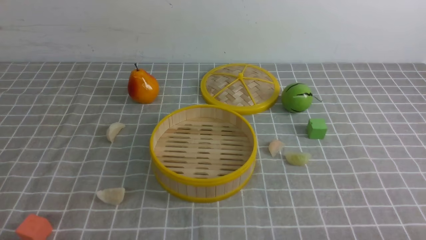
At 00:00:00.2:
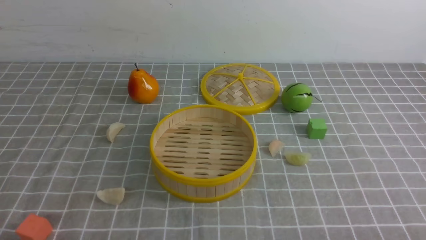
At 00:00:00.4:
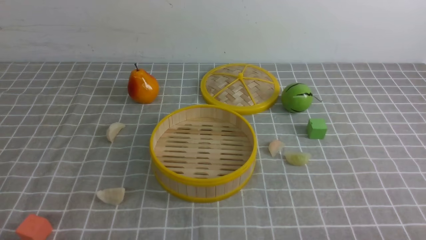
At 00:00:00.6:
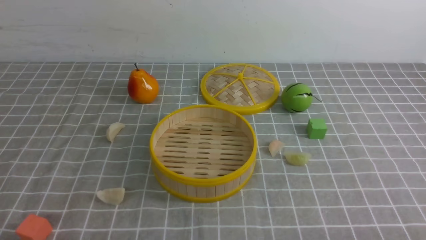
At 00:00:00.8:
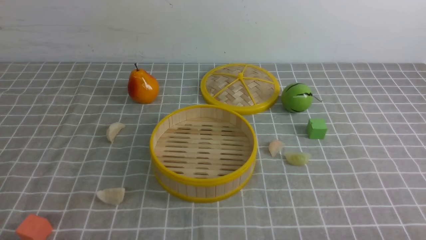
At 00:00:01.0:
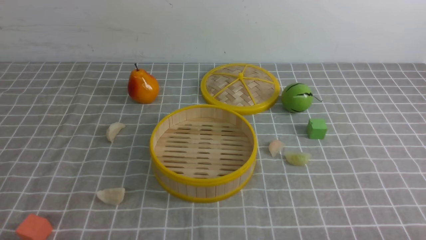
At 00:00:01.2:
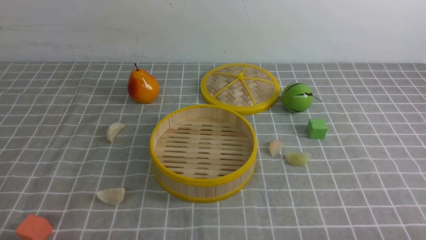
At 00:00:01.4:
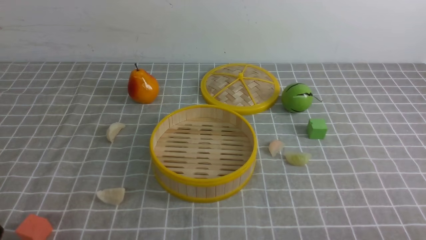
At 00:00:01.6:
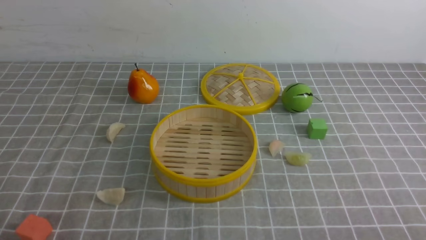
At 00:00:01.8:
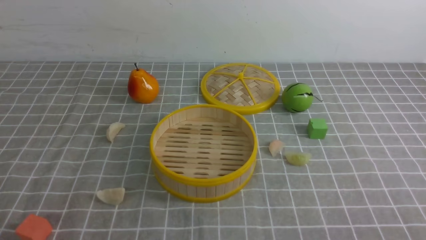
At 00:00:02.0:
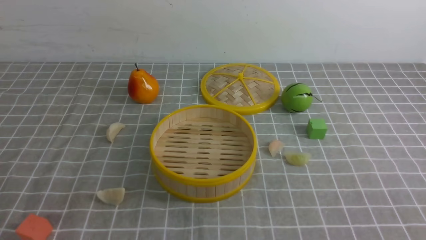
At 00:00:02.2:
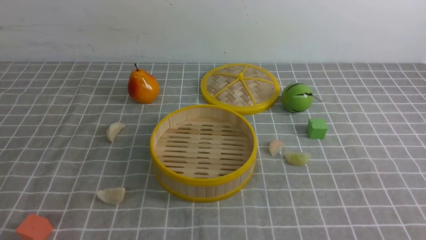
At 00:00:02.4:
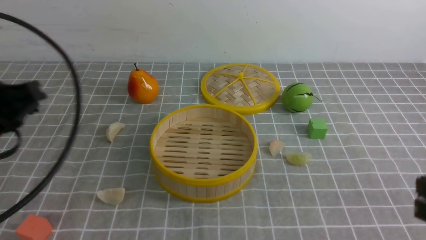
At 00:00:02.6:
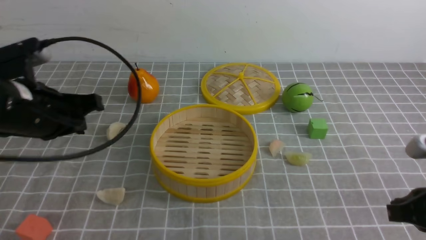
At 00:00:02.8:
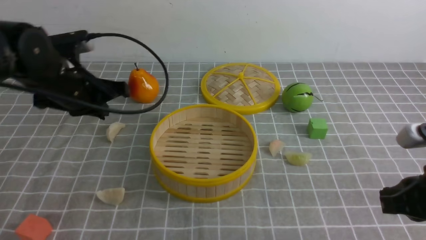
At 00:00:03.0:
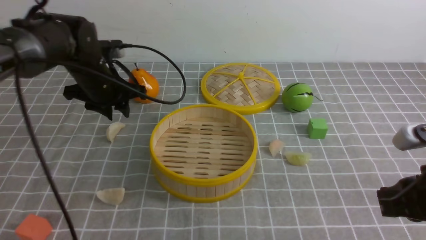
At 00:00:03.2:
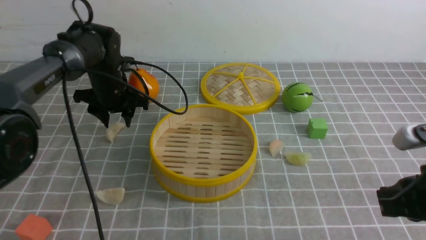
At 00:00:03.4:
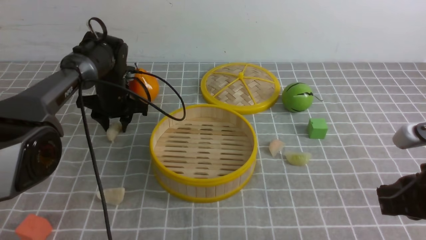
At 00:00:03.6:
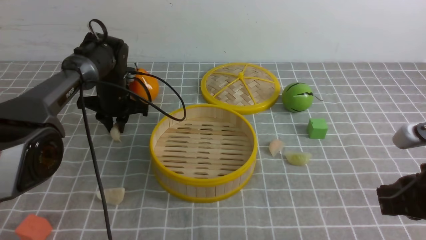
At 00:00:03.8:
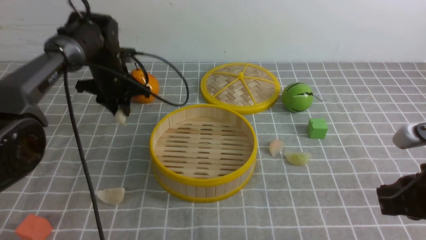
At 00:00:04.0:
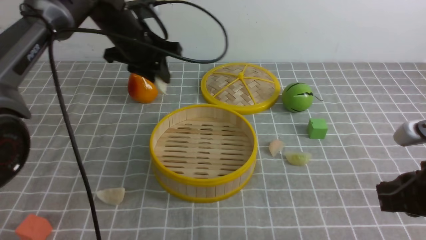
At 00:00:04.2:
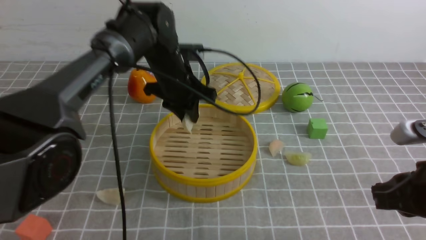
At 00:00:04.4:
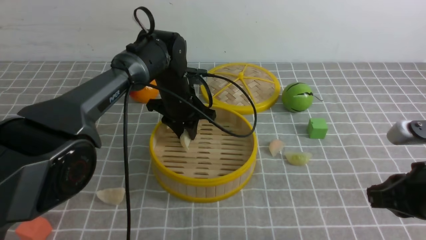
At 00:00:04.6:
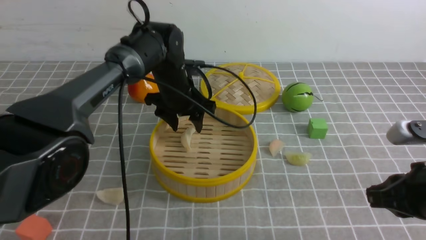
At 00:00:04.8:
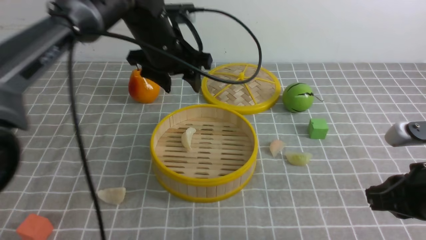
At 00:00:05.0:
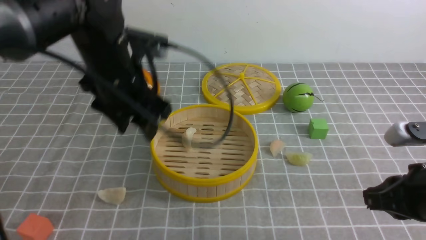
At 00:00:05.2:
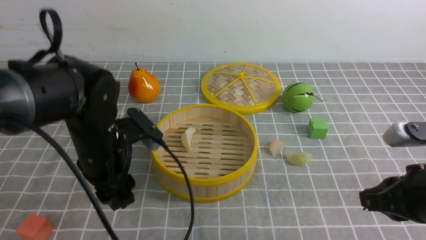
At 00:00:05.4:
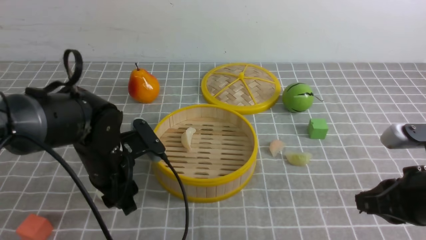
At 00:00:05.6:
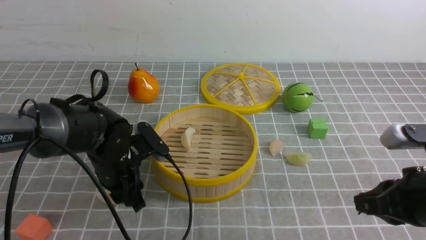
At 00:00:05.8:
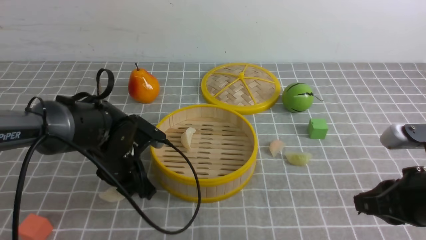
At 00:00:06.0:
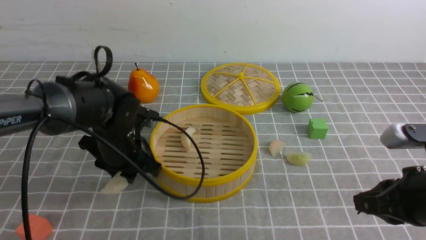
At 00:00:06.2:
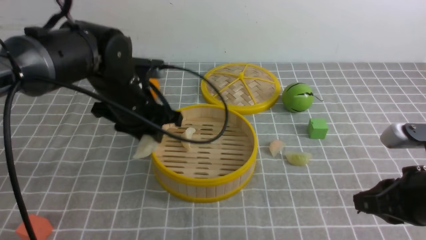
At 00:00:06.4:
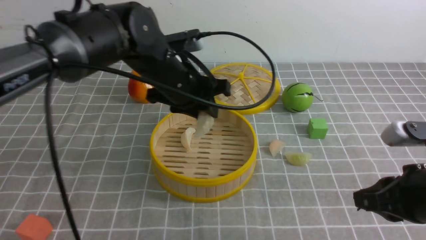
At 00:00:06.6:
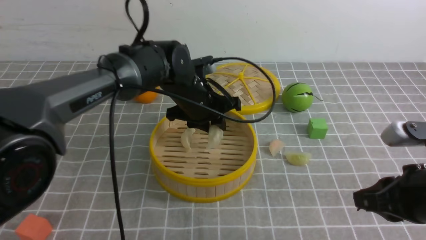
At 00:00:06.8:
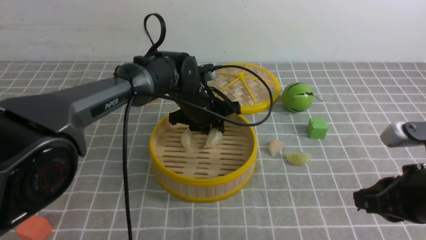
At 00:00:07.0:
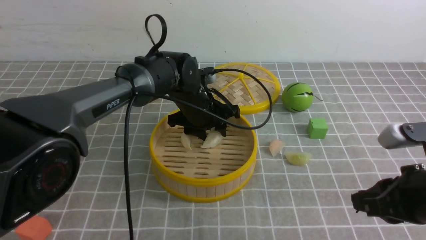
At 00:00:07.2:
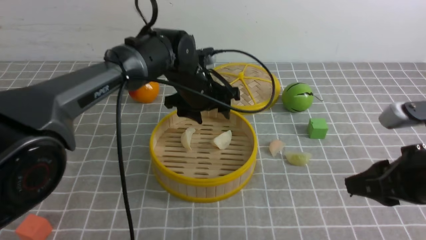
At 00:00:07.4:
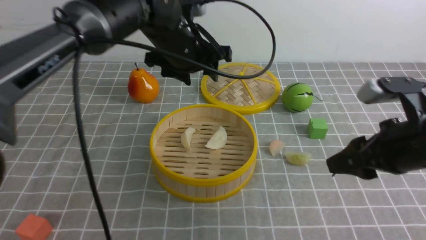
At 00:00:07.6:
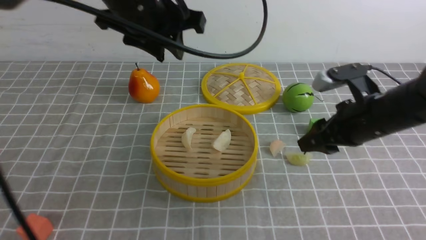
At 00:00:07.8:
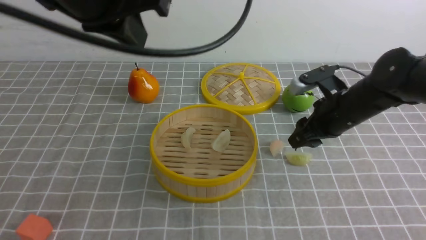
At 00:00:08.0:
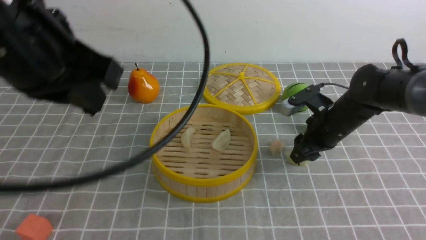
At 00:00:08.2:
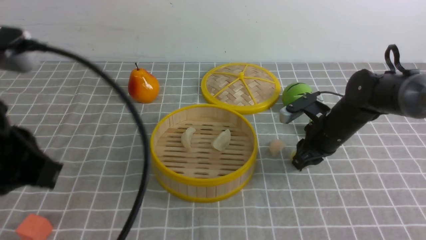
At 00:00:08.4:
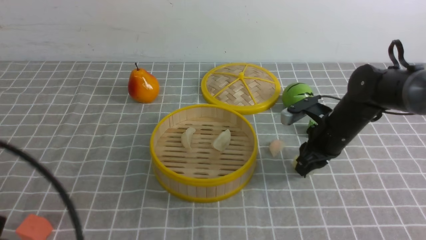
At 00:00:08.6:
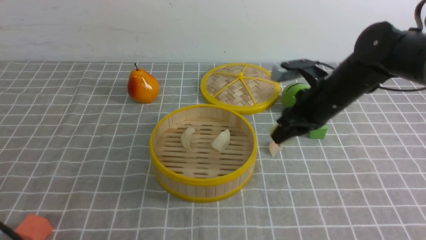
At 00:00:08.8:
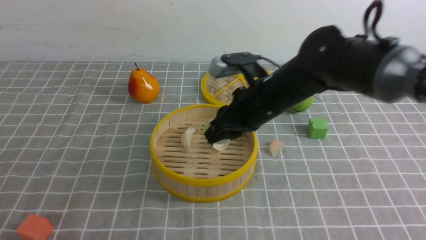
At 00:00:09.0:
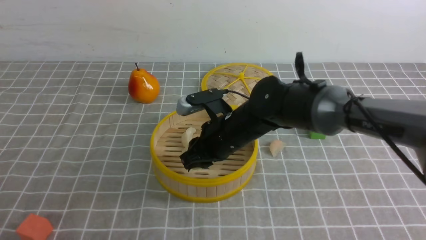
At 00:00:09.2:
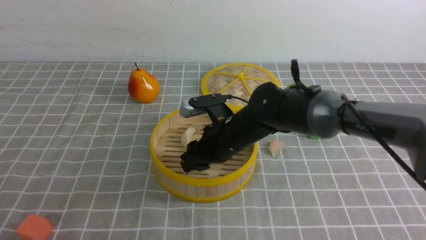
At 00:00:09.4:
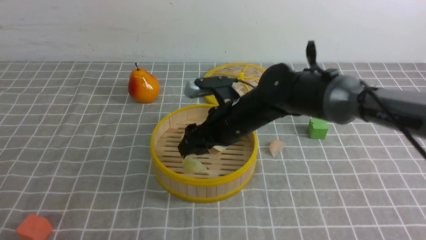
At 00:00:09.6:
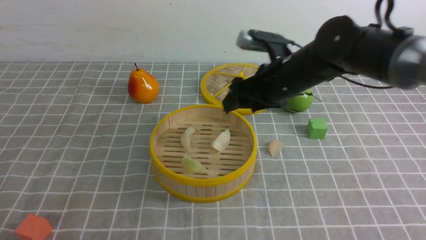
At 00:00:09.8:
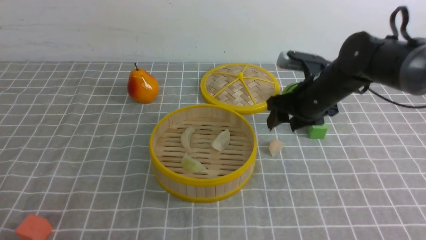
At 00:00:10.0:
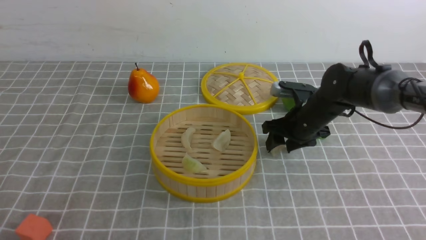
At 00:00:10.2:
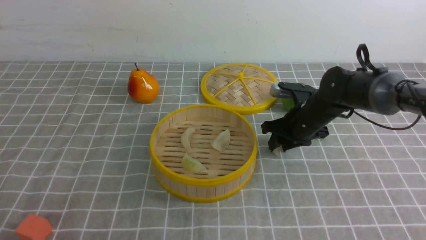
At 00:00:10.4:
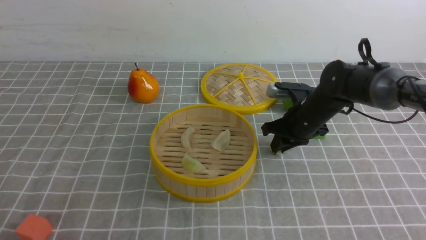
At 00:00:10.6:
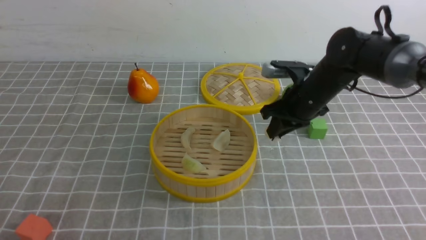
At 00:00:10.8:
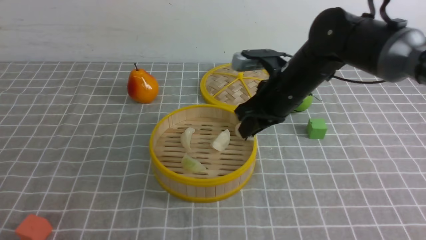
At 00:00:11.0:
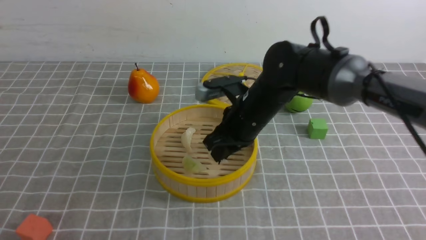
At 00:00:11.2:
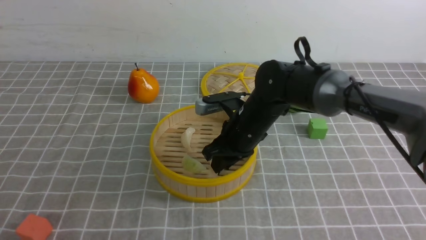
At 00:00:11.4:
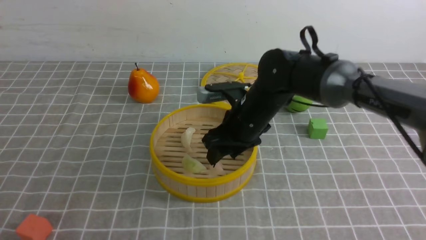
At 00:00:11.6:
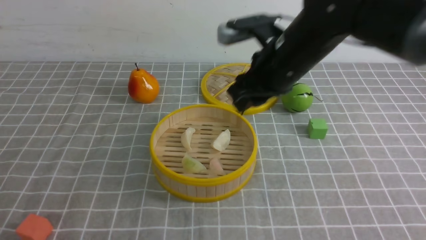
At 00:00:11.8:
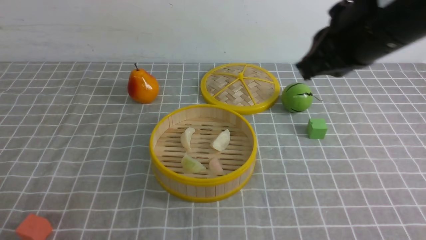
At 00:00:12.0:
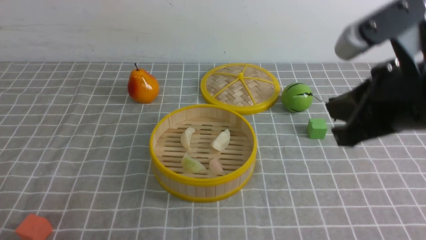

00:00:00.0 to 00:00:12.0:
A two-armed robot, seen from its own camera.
Task of the whole recording: put the dumplings into the steamer on the table with the grey tablecloth.
Step, 00:00:00.0 to 00:00:03.6: use the left arm to grab a dumpling.
Step, 00:00:03.8 to 00:00:04.6: use the left arm to put the dumpling into the steamer.
Step, 00:00:04.8 to 00:00:06.0: use the left arm to grab a dumpling.
Step, 00:00:06.2 to 00:00:07.2: use the left arm to put the dumpling into the steamer.
Step, 00:00:07.4 to 00:00:08.4: use the right arm to grab a dumpling.
Step, 00:00:08.6 to 00:00:09.4: use the right arm to put the dumpling into the steamer.
Step, 00:00:09.6 to 00:00:10.4: use the right arm to grab a dumpling.
Step, 00:00:10.6 to 00:00:11.4: use the right arm to put the dumpling into the steamer.
00:00:01.6 to 00:00:03.0: The right gripper moves forward, roughly 15 cm, and closes up; the left gripper shifts approximately 40 cm forward, and closes and opens again.
00:00:03.0 to 00:00:04.4: The left gripper heads to the right, covering some 15 cm.
00:00:04.4 to 00:00:06.0: The left gripper heads backward and to the left, covering some 15 cm.
00:00:06.0 to 00:00:07.6: The left gripper goes up and down, approximately 20 cm each way, reversing 2 times, and opens and closes again; the right gripper is displaced forward by about 15 cm, and opens its fingers.
00:00:07.6 to 00:00:09.0: The left gripper is displaced backward, to the left and downward by roughly 35 cm, and closes its fingers. The right gripper travels to the left by roughly 20 cm.
00:00:09.0 to 00:00:10.4: The right gripper heads to the right and forward, covering some 15 cm, and opens and closes again.
00:00:10.4 to 00:00:12.0: The right gripper heads backward and upward, covering approximately 25 cm, and opens, then closes once more.

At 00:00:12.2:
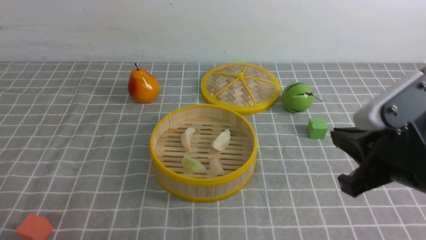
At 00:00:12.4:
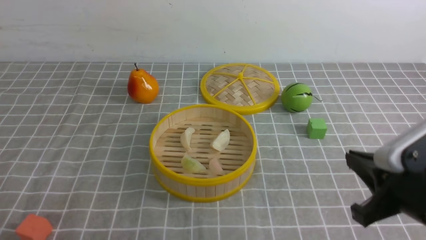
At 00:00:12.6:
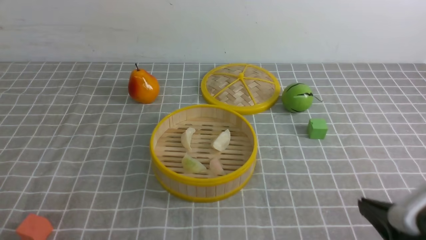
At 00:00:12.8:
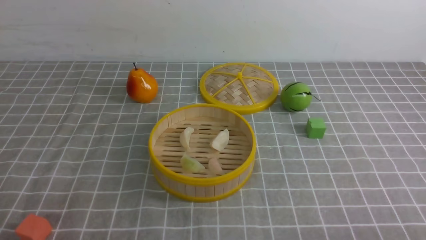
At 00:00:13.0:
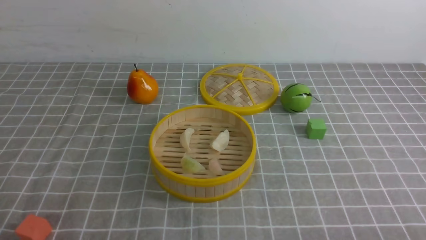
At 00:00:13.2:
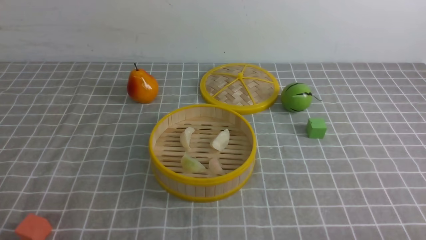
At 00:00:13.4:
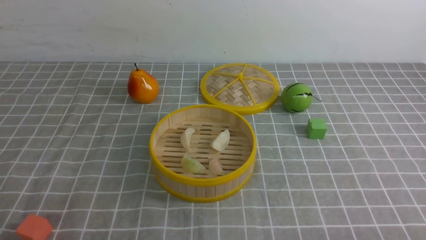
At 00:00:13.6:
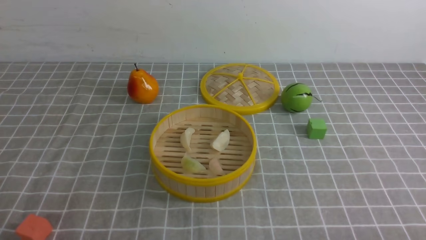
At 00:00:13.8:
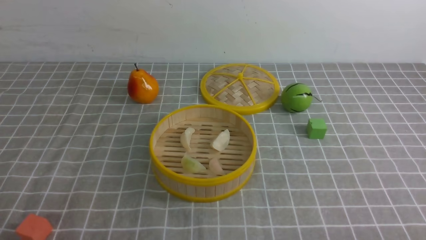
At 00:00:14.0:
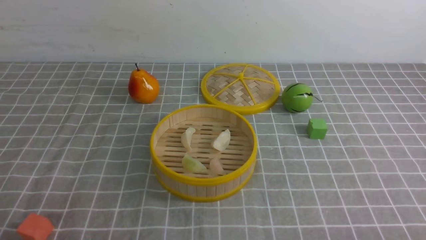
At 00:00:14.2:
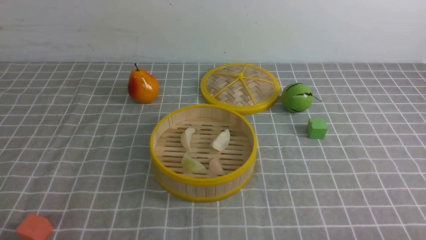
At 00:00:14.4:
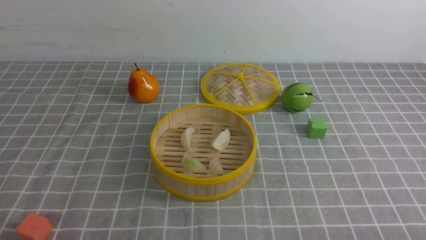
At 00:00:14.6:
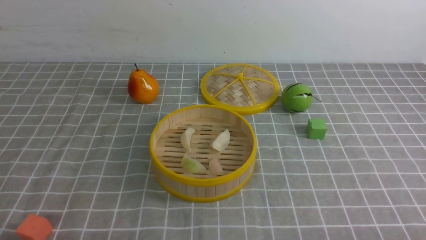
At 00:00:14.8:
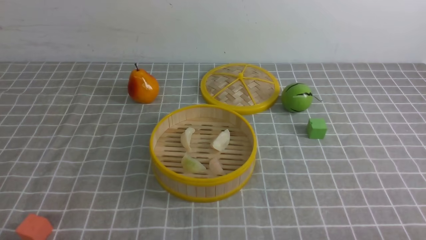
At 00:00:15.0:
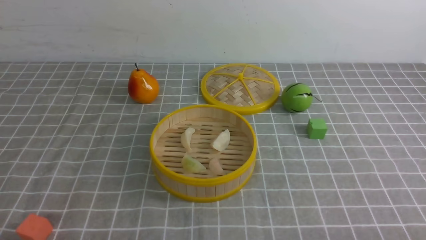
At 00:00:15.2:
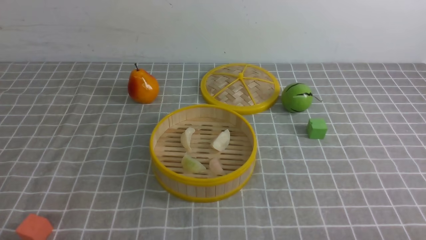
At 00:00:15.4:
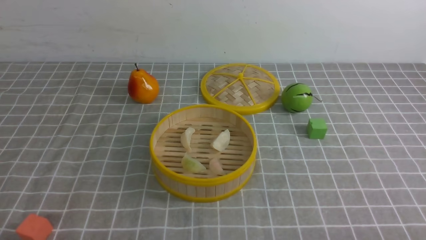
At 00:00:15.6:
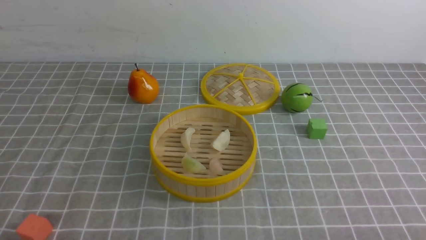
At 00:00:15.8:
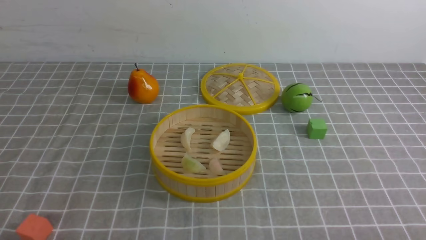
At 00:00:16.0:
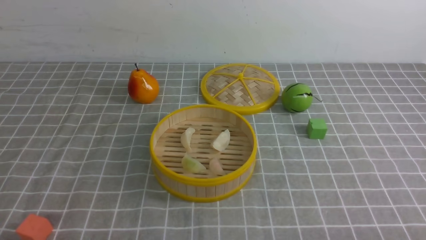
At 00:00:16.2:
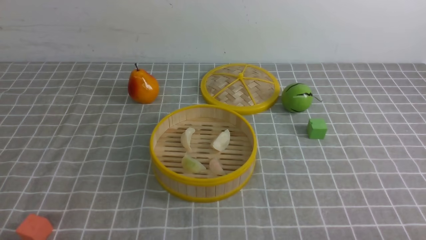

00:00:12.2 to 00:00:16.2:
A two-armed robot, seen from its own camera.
Task of the whole recording: put the dumplings into the steamer on the table with the grey tablecloth.
00:00:12.2 to 00:00:13.6: The right gripper is displaced backward, downward and to the right by some 20 cm.
00:00:14.8 to 00:00:16.2: Both grippers stay about where they are.
